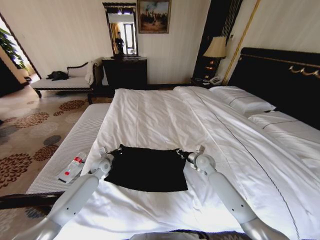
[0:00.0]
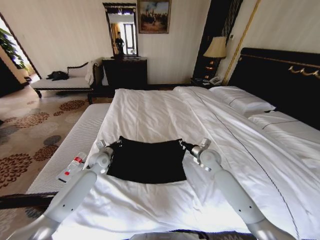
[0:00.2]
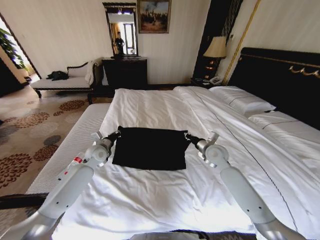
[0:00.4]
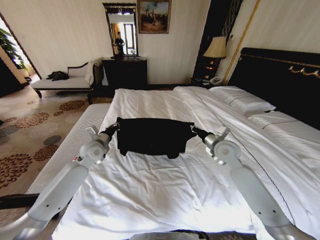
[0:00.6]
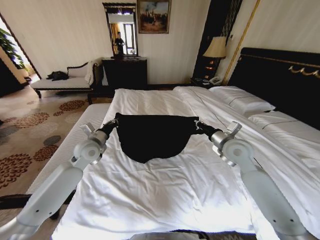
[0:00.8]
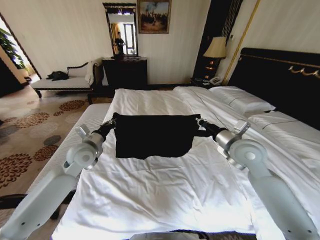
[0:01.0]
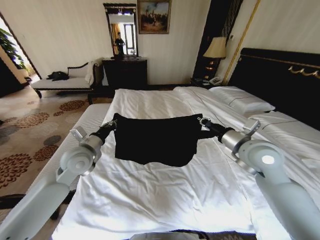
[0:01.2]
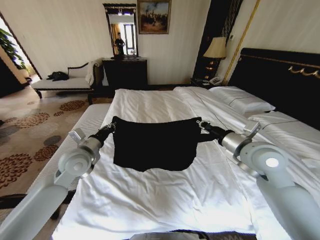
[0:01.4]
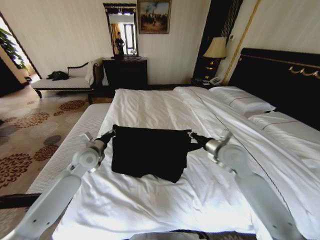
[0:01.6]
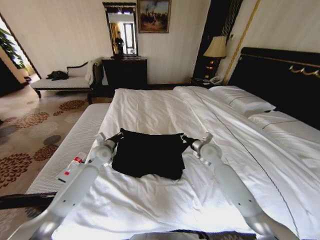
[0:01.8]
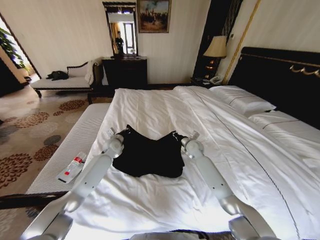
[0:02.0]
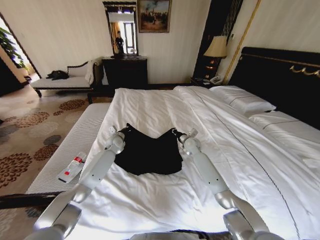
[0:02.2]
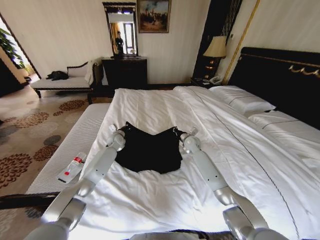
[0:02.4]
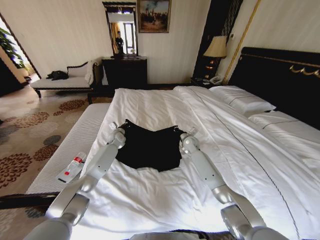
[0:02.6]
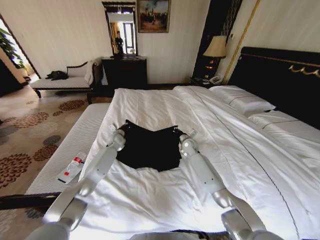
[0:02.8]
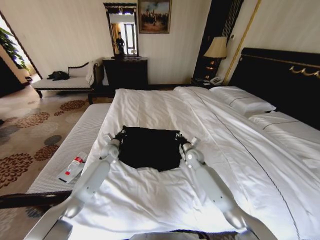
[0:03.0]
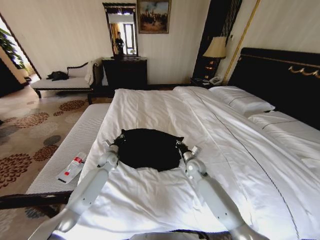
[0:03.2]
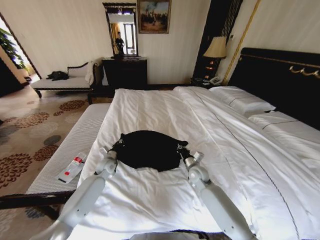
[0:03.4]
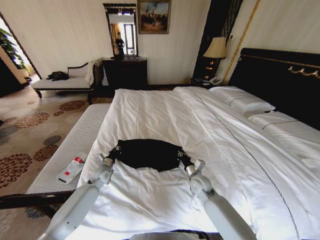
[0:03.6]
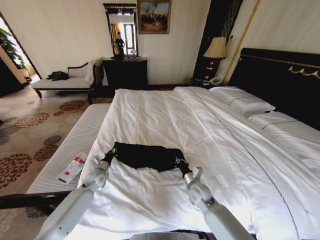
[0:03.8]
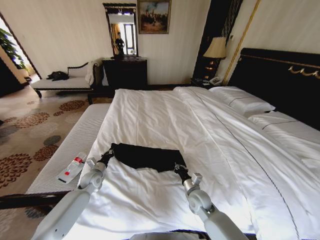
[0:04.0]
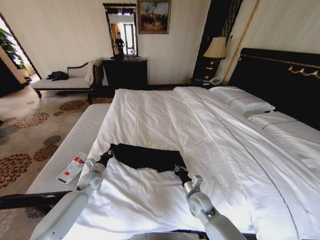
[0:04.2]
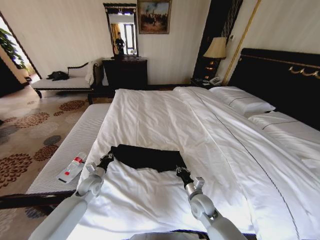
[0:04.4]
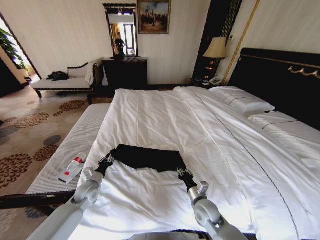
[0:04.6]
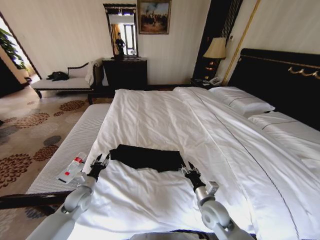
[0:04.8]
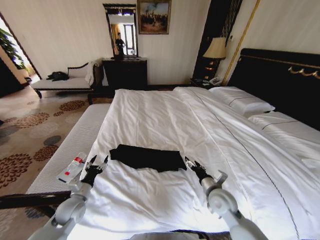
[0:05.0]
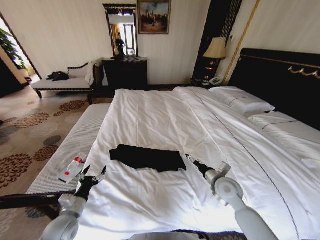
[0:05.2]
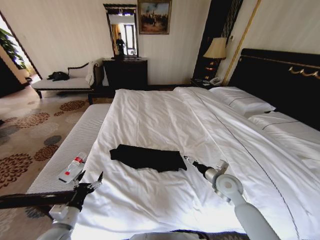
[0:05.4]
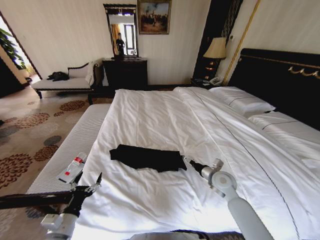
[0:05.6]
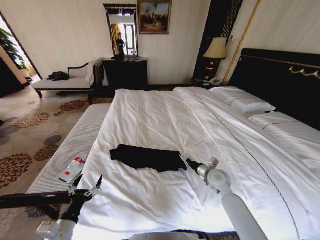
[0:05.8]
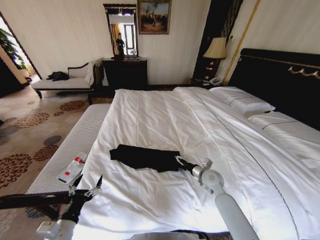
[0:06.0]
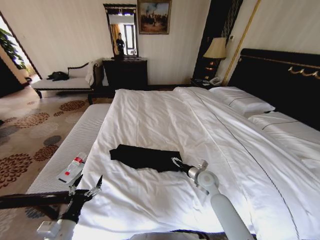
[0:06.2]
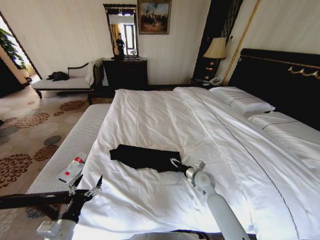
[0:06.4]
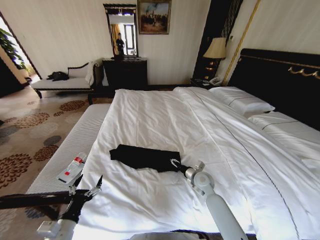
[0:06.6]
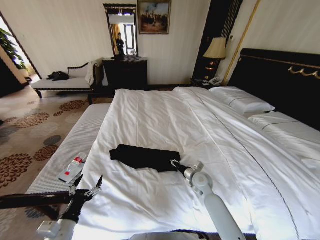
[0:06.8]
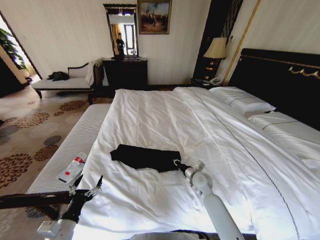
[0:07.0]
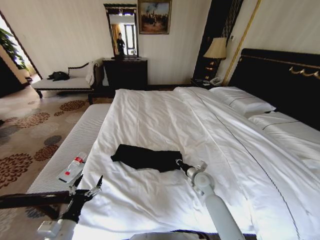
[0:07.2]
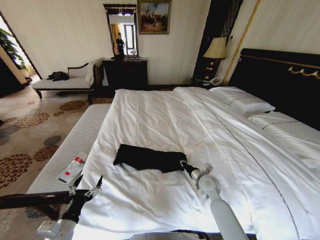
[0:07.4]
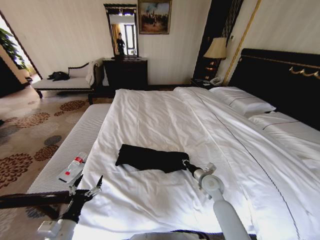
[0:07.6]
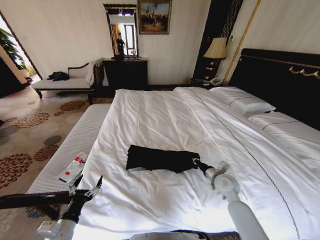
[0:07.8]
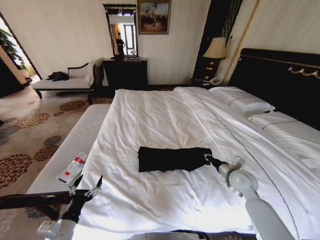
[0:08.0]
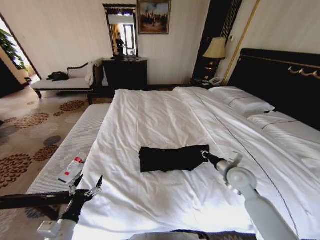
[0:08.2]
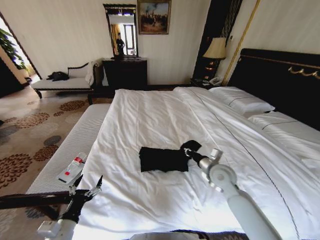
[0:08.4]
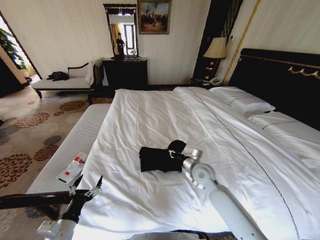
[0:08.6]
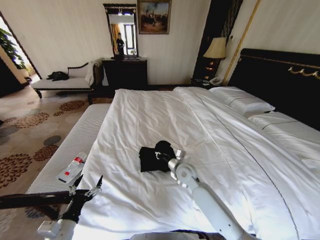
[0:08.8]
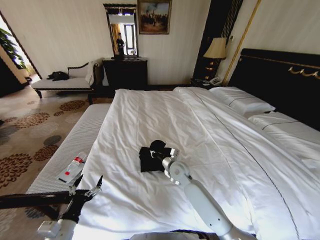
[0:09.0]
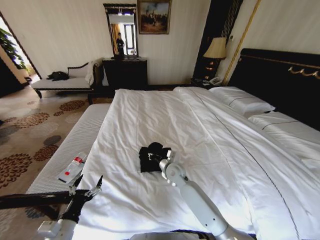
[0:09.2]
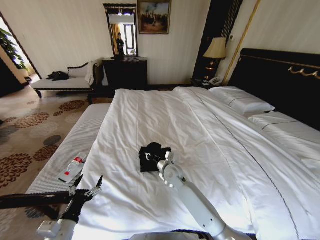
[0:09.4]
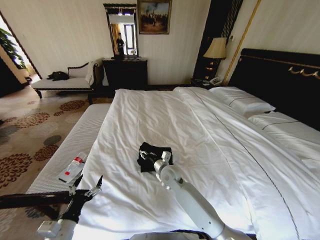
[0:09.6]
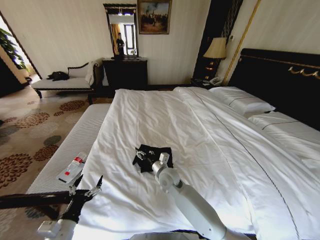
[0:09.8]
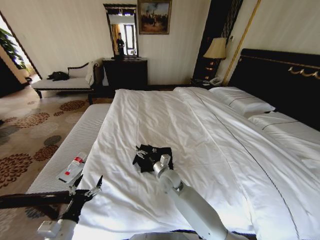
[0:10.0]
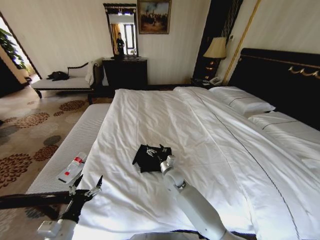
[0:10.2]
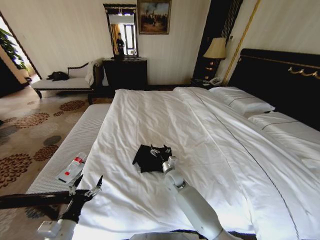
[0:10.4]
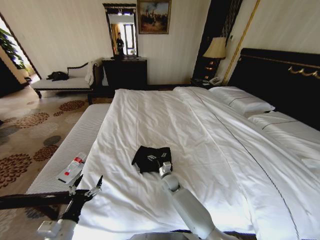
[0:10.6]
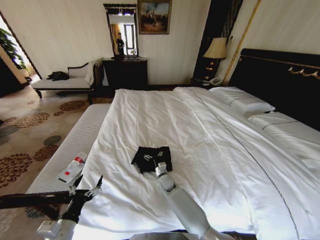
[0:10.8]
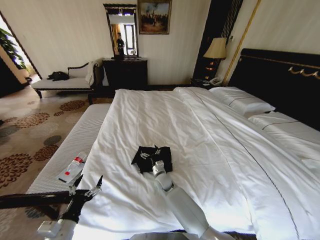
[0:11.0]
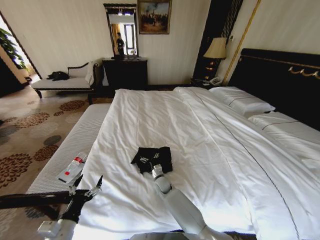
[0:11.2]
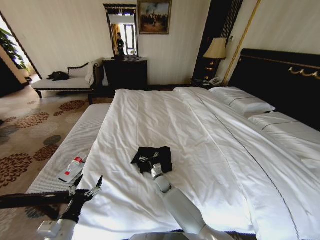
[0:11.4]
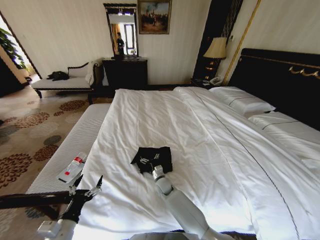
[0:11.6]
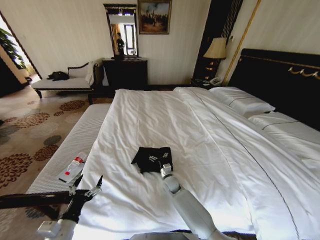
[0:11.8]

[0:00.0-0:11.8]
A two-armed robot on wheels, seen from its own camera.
Task of the whole recording: Fold the clothes on the bed.
0:00.0 to 0:01.4: Both grippers move upward and backward, roughly 25 cm.
0:01.4 to 0:03.0: Both grippers move downward and forward, approximately 25 cm.
0:03.0 to 0:04.4: Both grippers move backward, about 20 cm.
0:04.4 to 0:06.0: The left gripper goes about 25 cm backward, and opens up; the right gripper goes approximately 15 cm forward, to the right and upward, and opens up.
0:06.0 to 0:07.4: The right gripper closes its fingers.
0:07.4 to 0:08.8: The right gripper shifts roughly 10 cm to the left and upward.
0:08.8 to 0:10.4: The right gripper moves downward and to the left, approximately 10 cm, and opens.

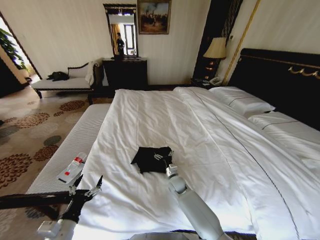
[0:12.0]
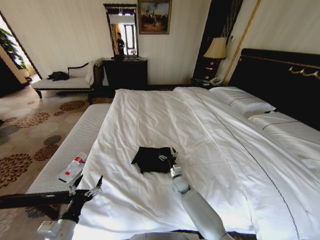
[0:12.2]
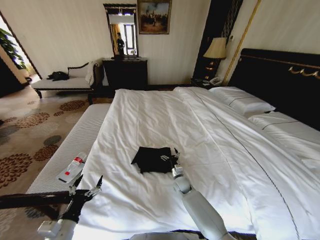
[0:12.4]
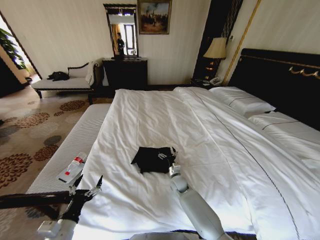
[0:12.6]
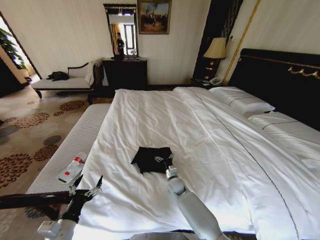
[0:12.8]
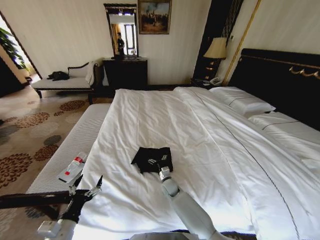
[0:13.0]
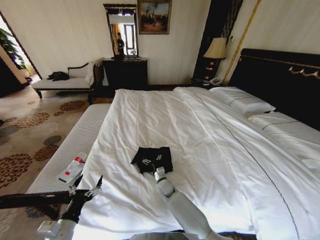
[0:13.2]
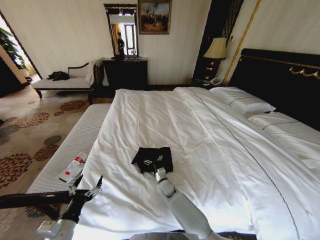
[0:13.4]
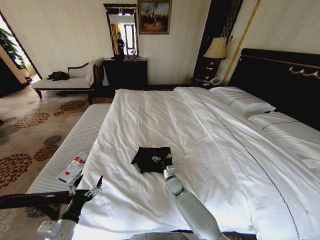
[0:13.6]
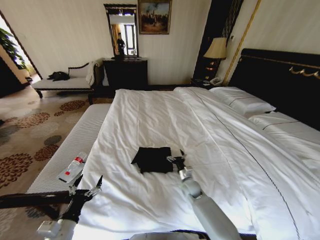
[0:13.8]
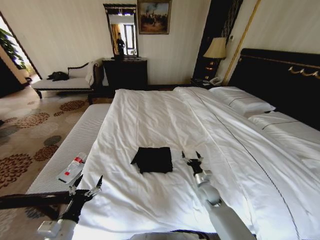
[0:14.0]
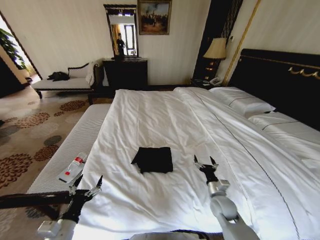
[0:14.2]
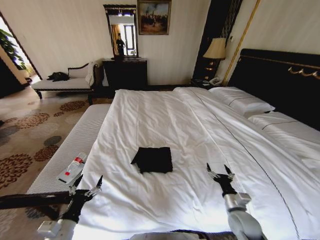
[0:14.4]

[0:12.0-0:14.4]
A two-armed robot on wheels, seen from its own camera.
Task of the whole recording: Fold the clothes on the bed.
0:12.0 to 0:13.2: The right gripper moves to the left, approximately 5 cm.
0:13.2 to 0:14.4: The right gripper travels to the right and backward by about 35 cm.
